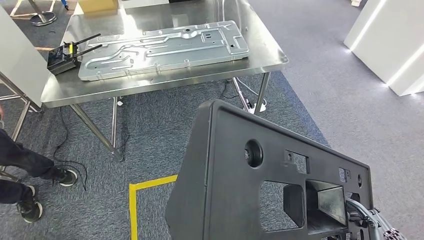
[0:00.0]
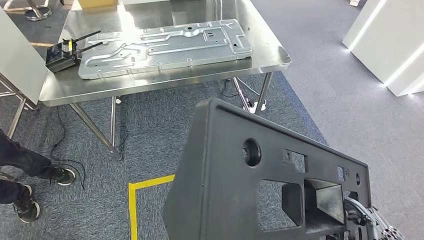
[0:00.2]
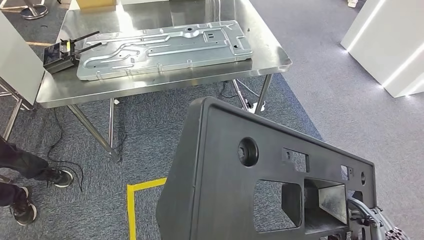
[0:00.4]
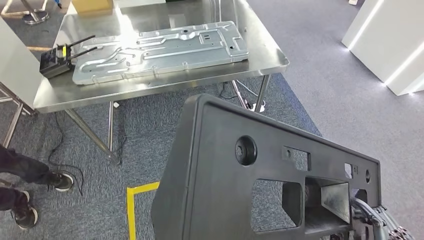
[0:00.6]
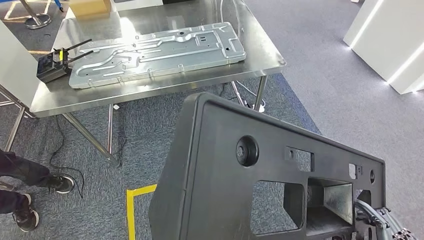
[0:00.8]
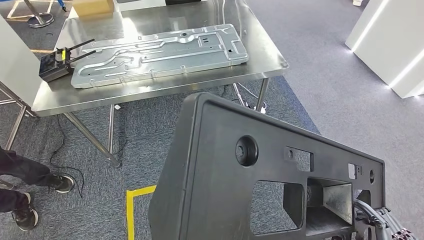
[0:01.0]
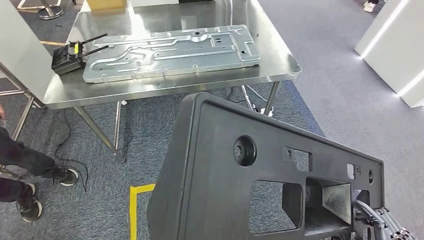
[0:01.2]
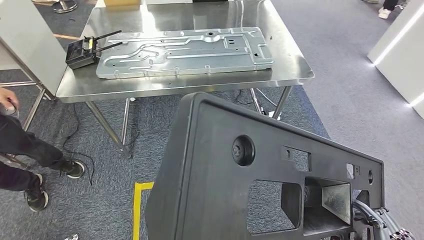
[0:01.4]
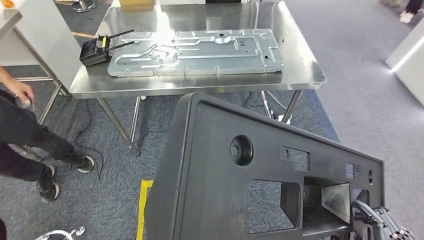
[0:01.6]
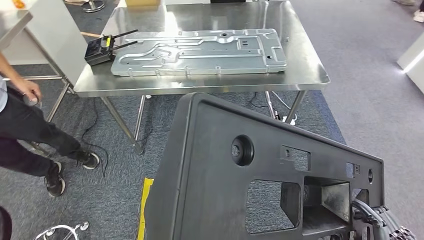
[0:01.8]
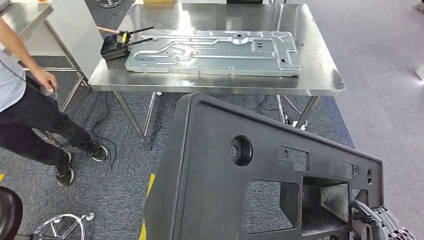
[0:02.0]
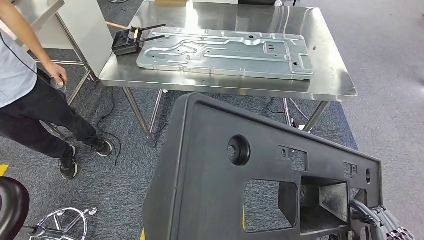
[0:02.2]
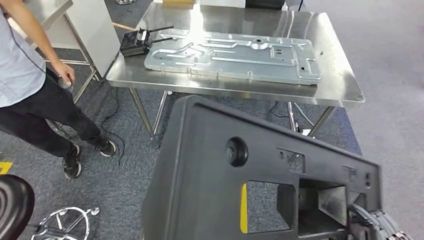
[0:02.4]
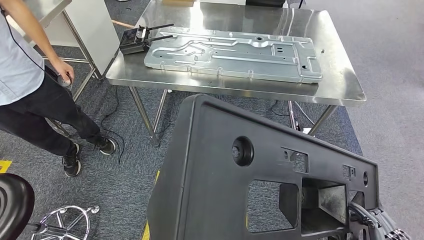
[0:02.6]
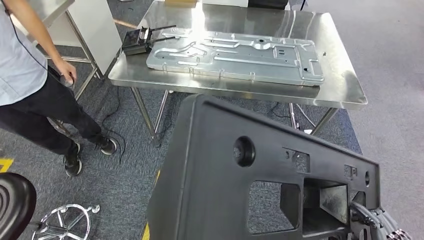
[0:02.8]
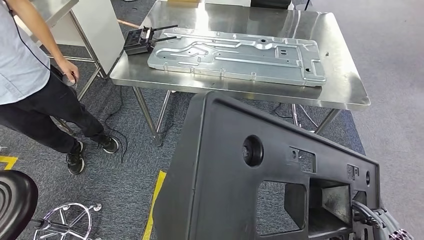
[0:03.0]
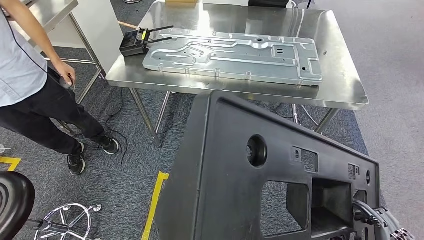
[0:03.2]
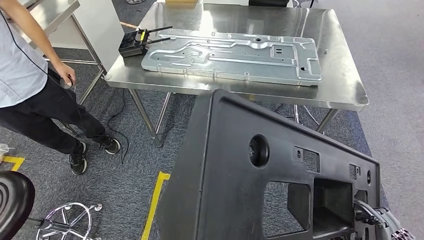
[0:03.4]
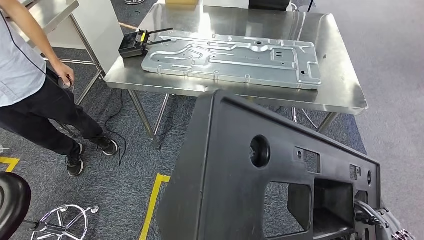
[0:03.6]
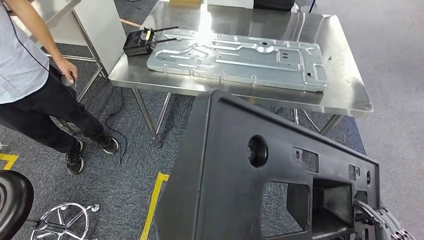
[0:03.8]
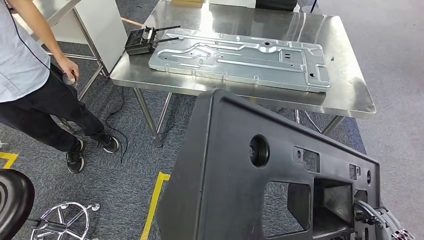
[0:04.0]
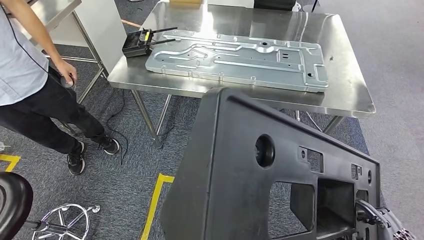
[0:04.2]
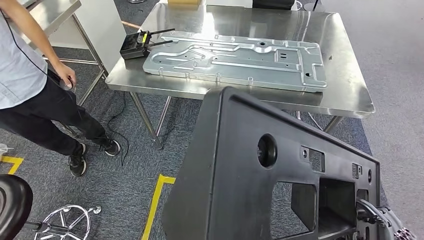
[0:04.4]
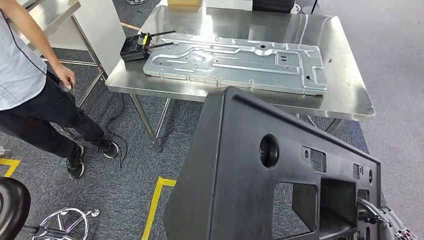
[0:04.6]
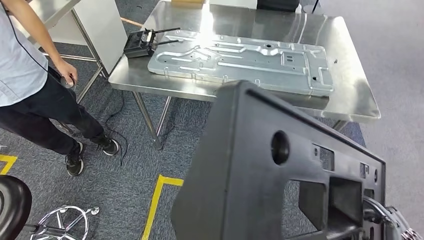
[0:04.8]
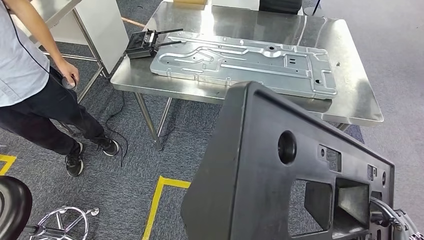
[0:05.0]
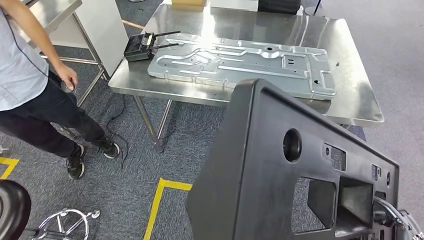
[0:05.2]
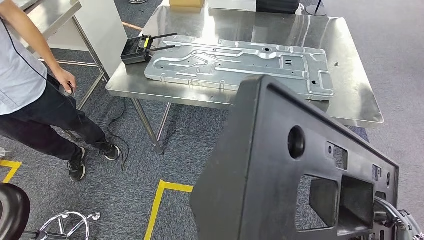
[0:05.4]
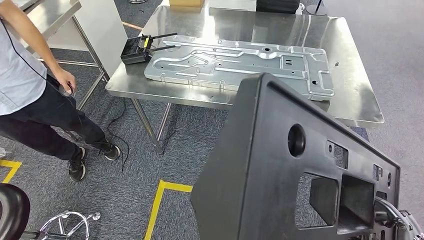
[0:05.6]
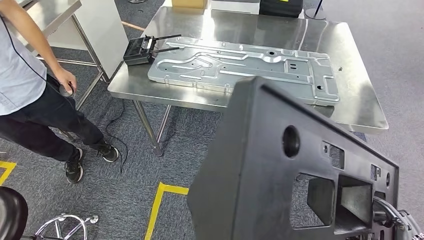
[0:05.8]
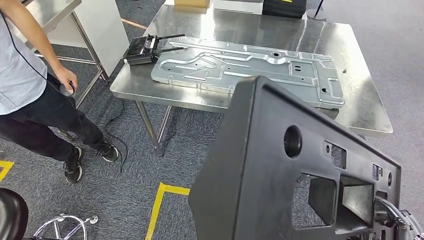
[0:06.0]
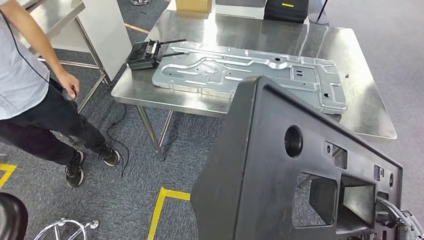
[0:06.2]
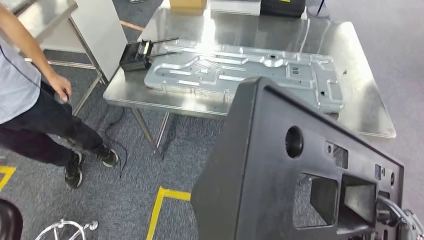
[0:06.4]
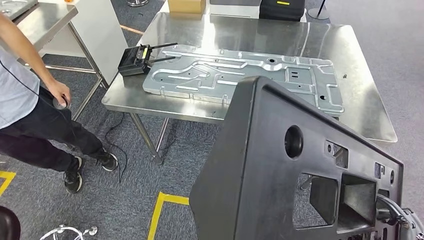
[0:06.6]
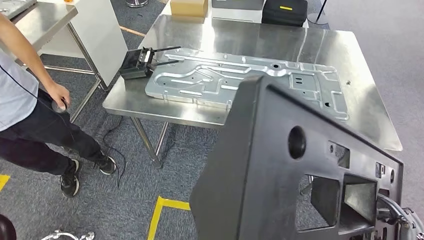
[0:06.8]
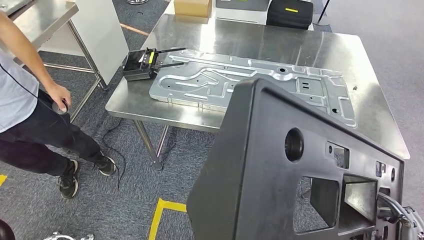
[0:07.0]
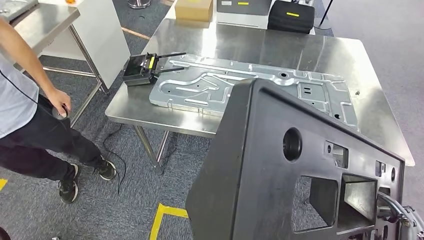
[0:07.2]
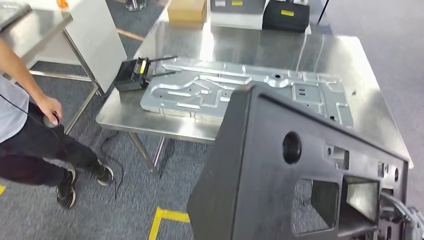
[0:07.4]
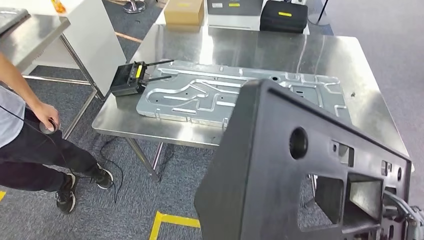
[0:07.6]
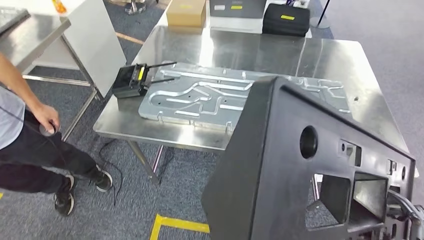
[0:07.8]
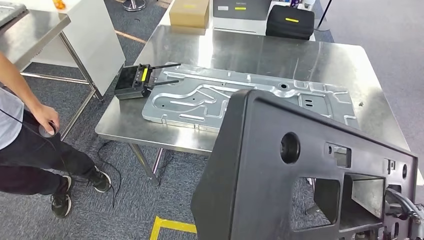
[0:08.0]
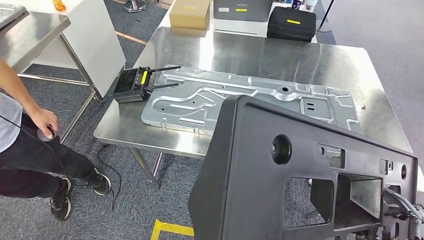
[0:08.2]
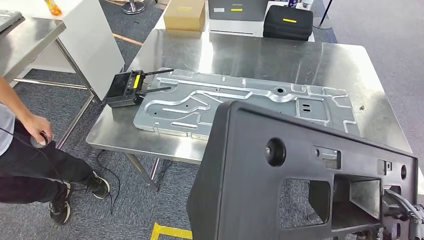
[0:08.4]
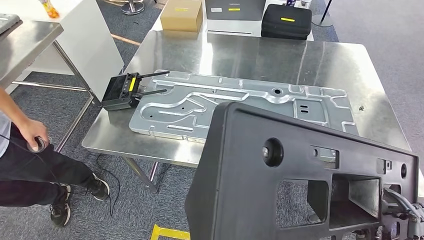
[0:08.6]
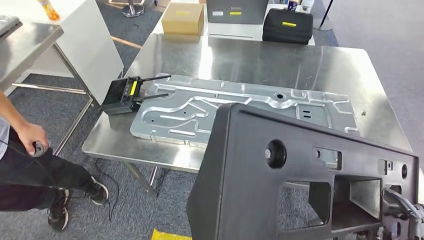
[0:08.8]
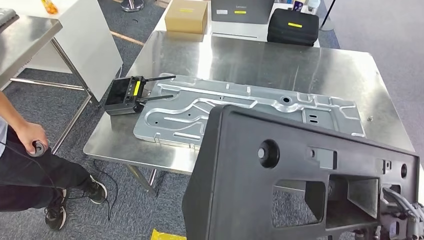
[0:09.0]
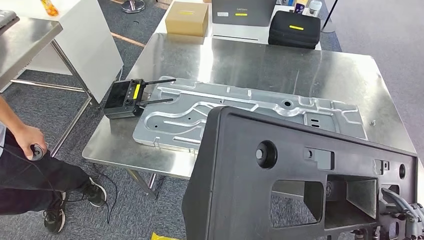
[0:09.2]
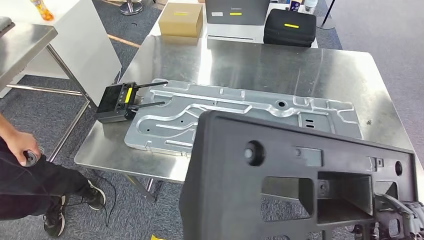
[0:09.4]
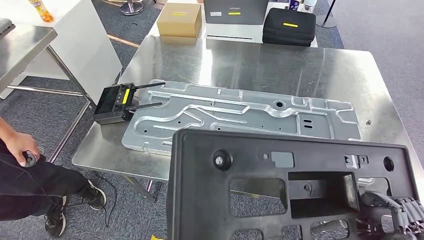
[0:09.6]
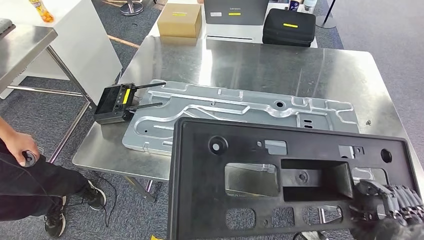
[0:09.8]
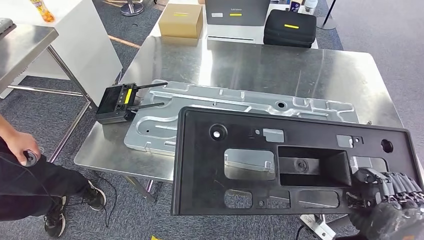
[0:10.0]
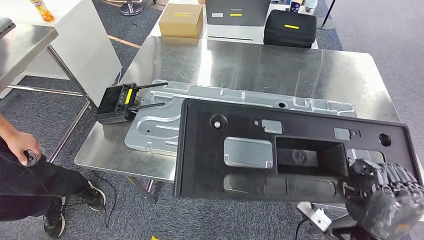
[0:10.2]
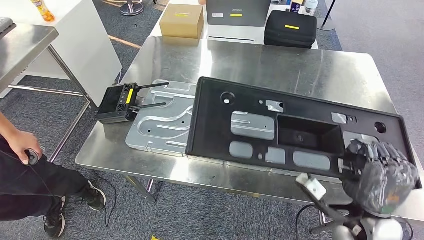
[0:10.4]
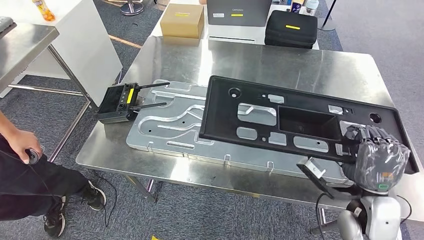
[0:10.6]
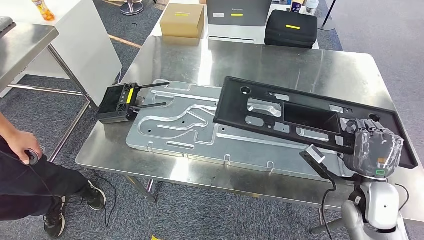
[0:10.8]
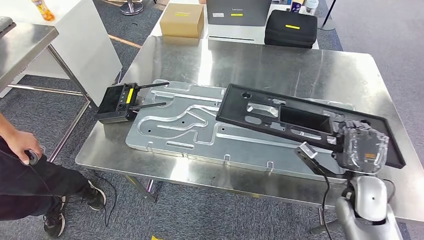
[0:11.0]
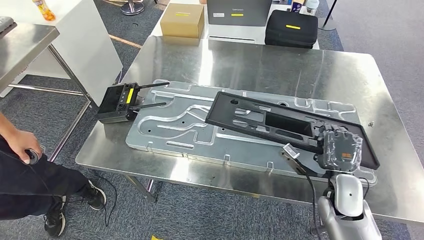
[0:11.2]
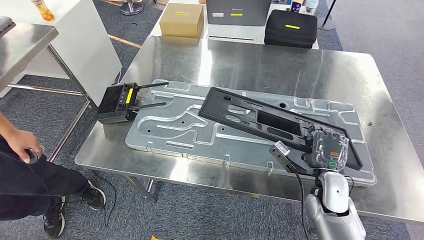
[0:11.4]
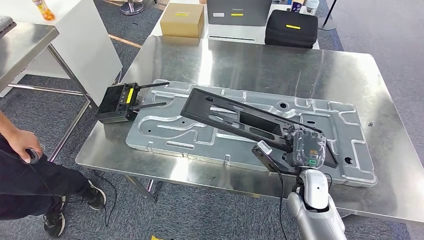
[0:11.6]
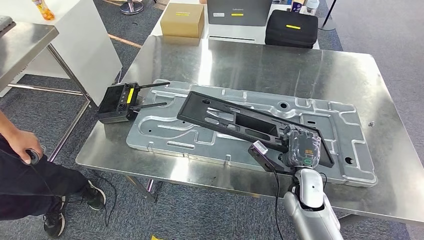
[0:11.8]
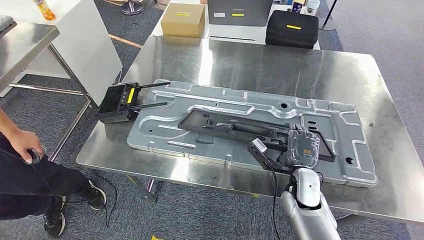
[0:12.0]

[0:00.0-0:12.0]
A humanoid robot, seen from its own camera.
Step, 0:00.0 to 0:08.4: Move the large material to the workbench.

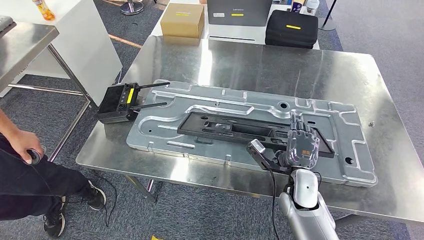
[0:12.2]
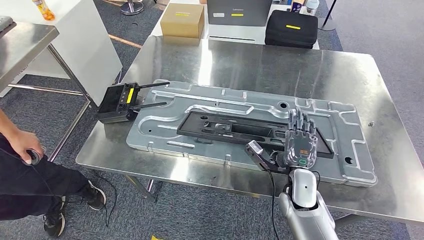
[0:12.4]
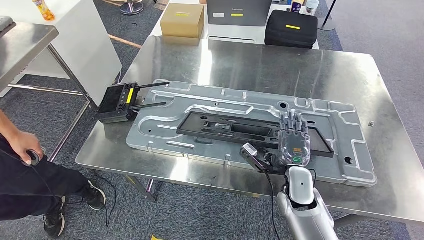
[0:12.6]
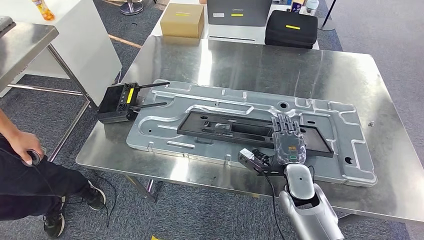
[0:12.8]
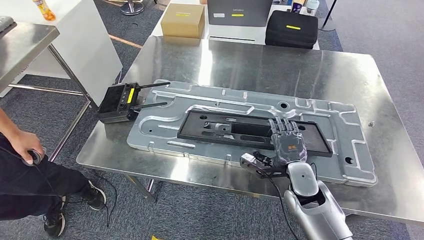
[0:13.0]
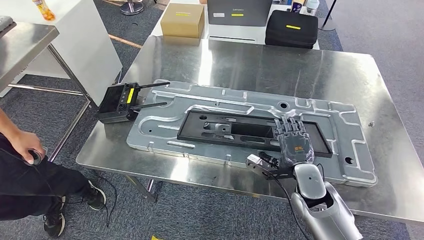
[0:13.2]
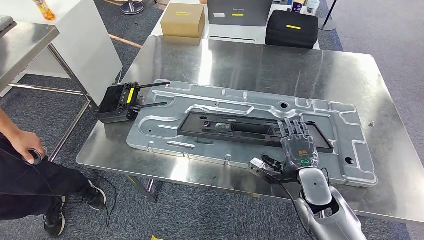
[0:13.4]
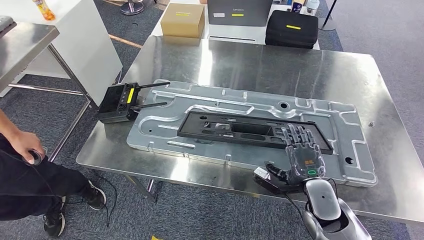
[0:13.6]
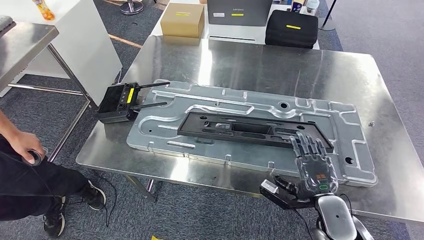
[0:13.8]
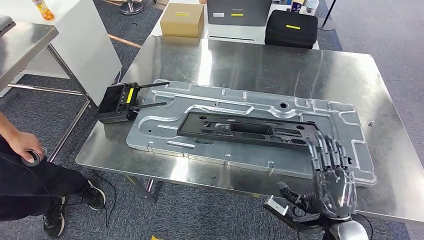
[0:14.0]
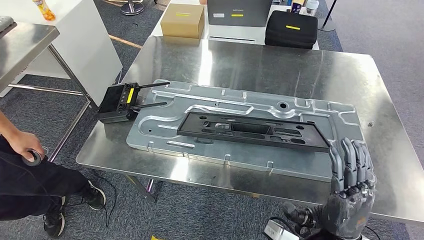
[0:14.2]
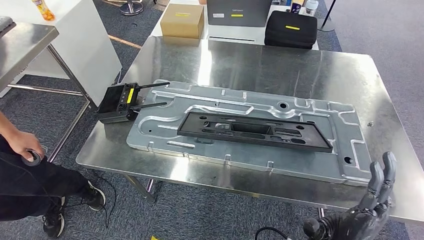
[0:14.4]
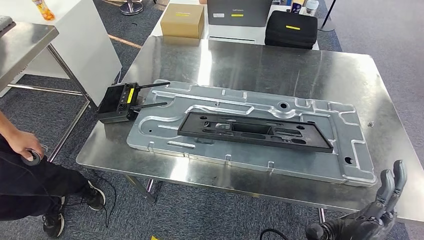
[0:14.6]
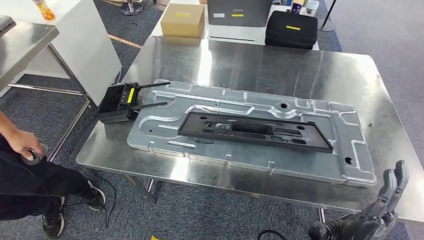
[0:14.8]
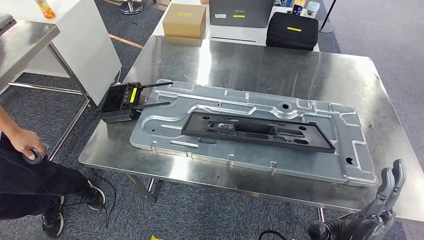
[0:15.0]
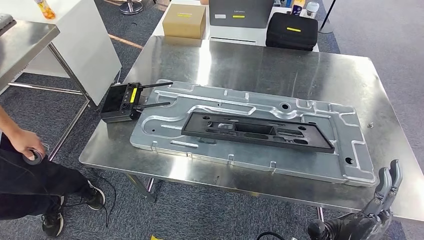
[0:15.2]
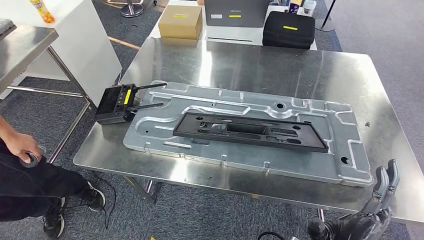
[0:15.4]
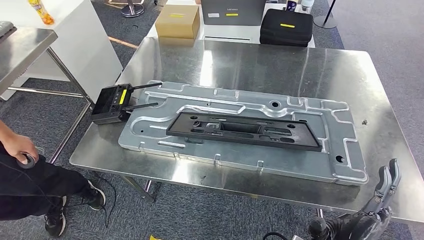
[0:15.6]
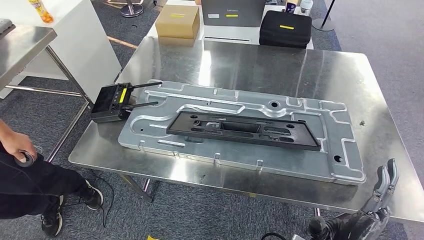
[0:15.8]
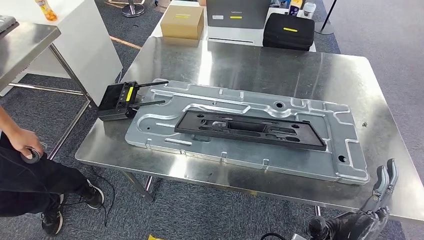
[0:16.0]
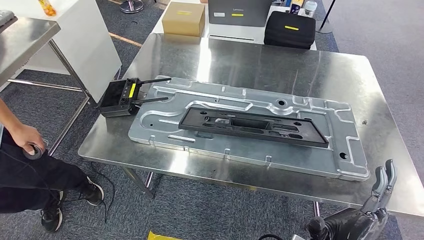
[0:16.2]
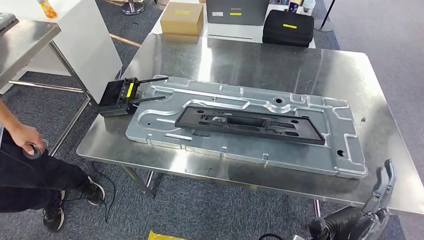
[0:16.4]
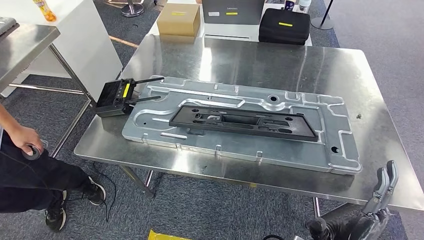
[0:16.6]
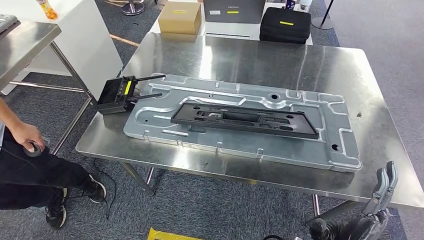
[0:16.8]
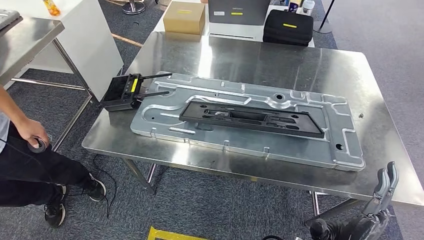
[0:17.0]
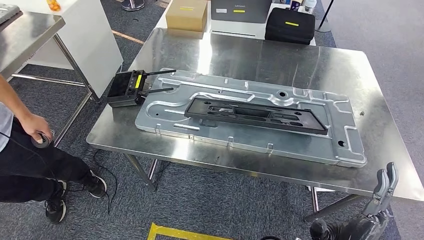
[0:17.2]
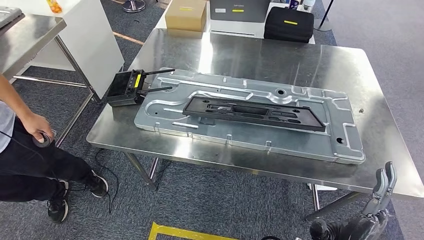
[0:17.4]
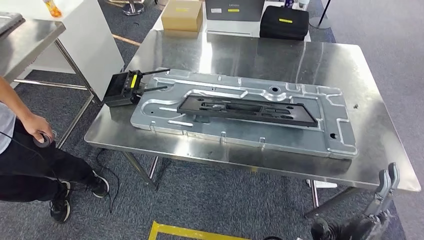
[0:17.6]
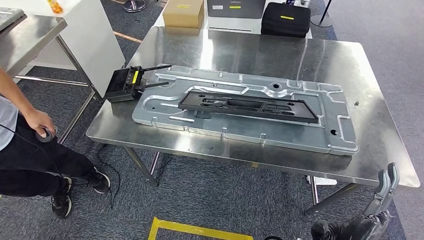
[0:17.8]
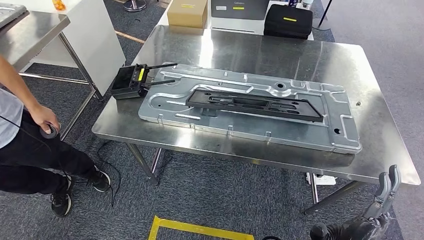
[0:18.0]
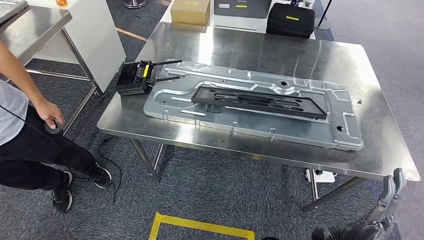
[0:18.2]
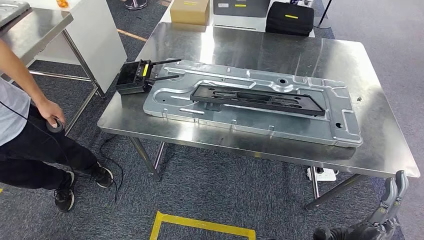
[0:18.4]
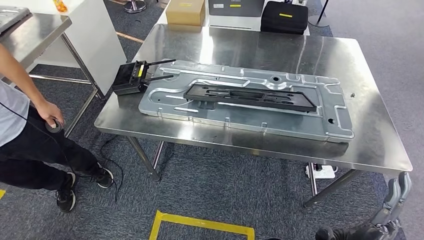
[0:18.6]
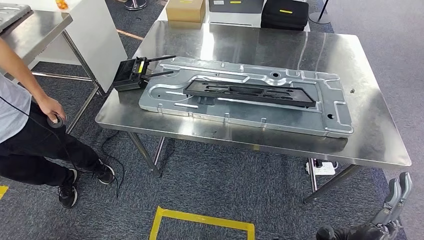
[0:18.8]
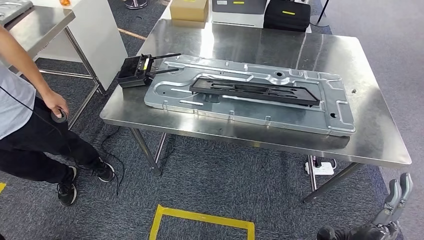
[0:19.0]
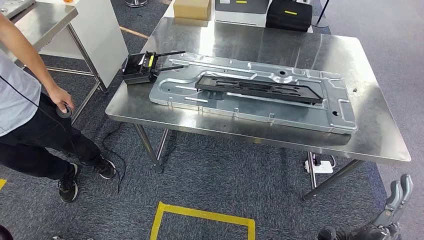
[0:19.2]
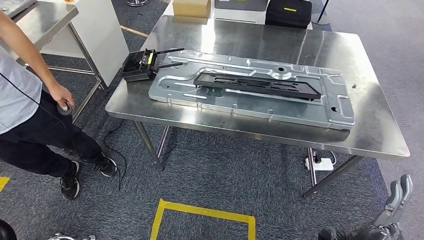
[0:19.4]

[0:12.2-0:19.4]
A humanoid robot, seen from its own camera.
0:12.2 to 0:13.6: The right hand shifts by approximately 5 cm.
0:13.6 to 0:15.0: The right hand heads backward, covering approximately 10 cm.
